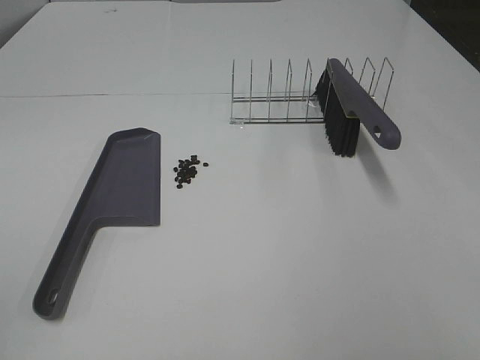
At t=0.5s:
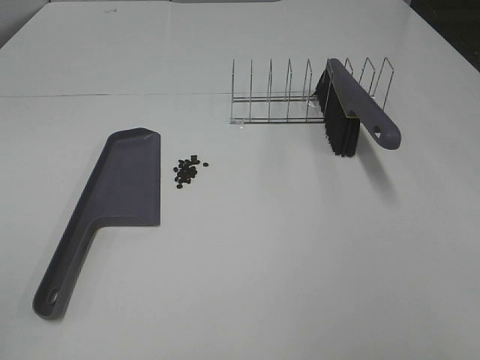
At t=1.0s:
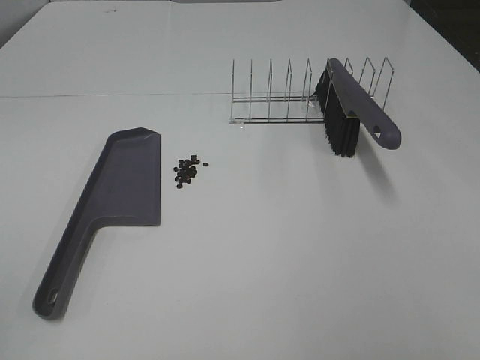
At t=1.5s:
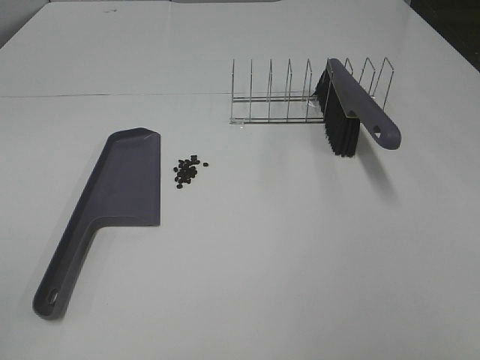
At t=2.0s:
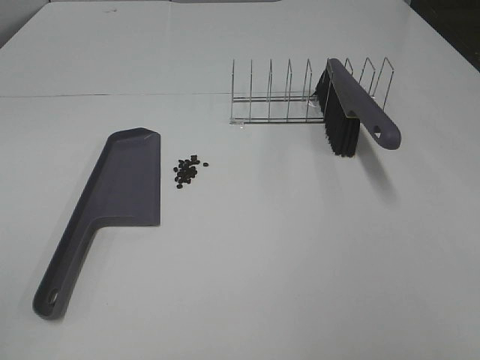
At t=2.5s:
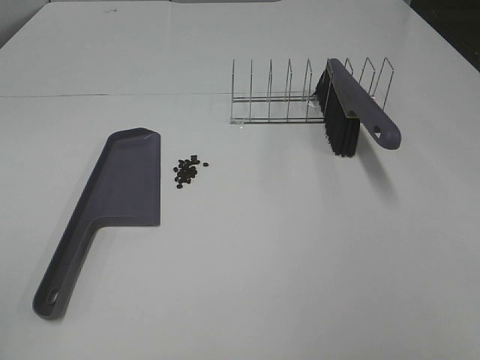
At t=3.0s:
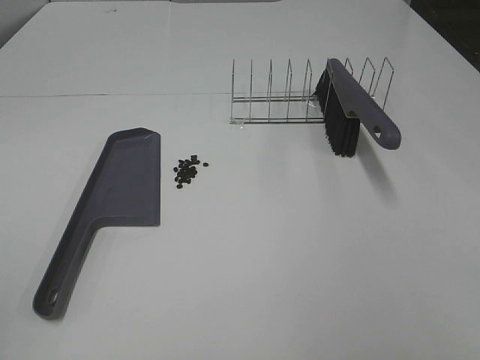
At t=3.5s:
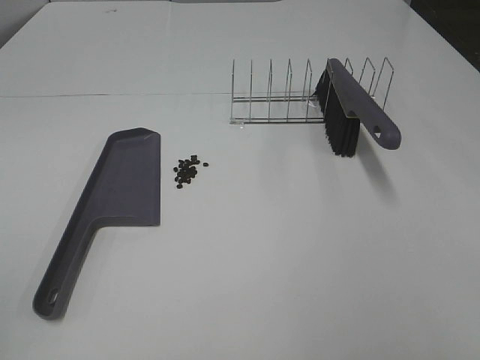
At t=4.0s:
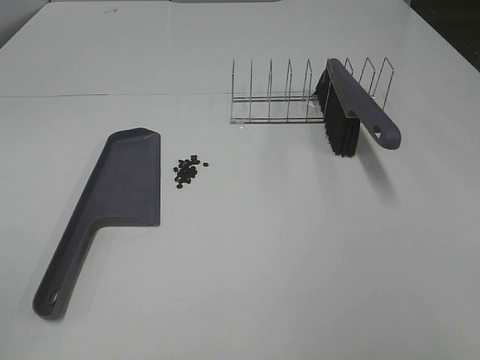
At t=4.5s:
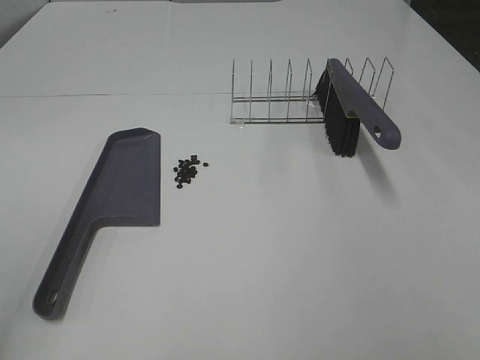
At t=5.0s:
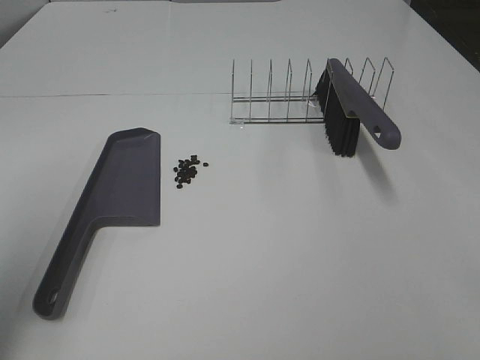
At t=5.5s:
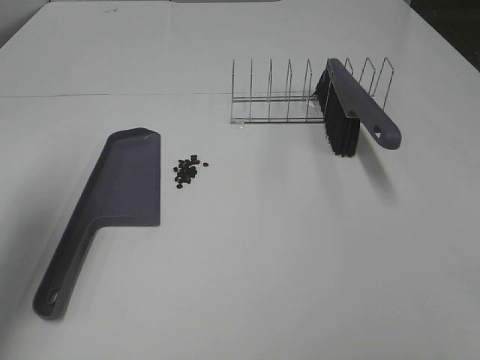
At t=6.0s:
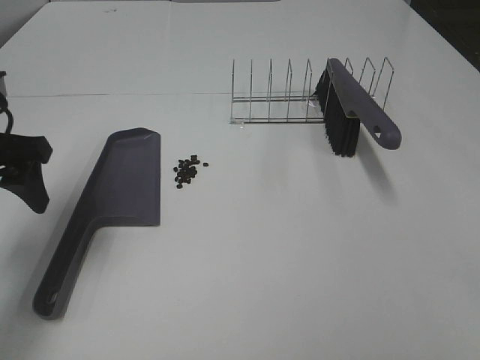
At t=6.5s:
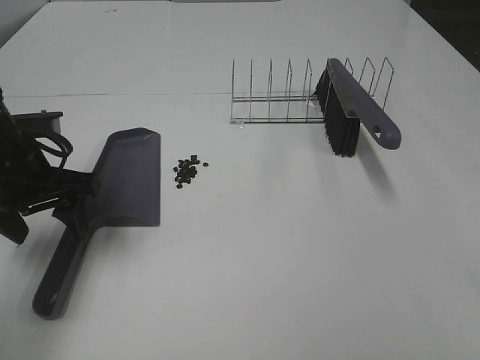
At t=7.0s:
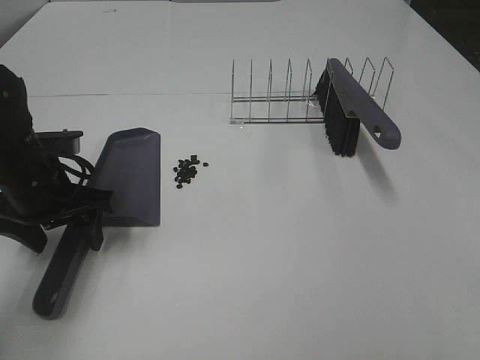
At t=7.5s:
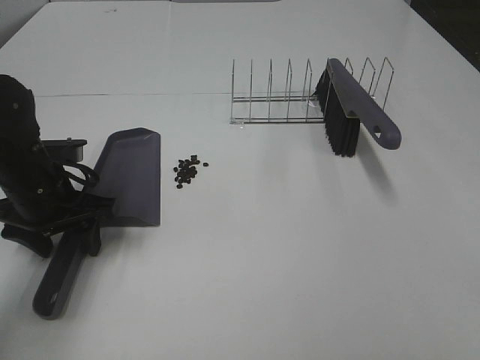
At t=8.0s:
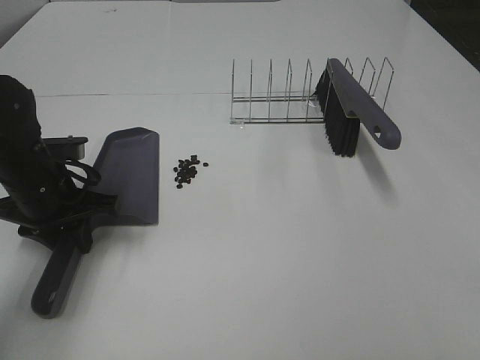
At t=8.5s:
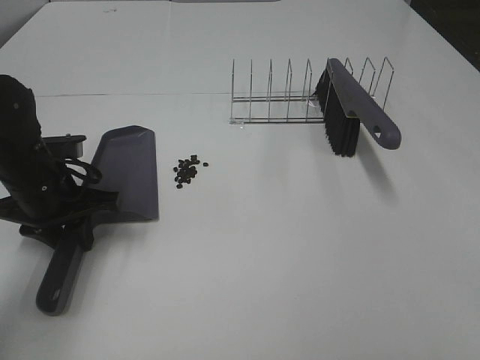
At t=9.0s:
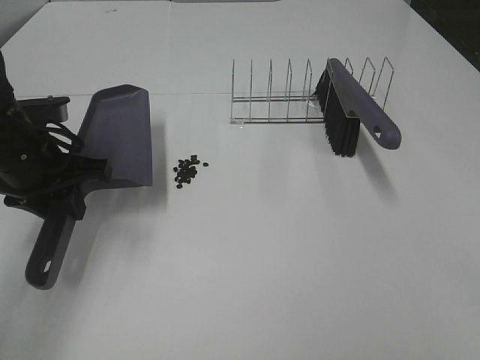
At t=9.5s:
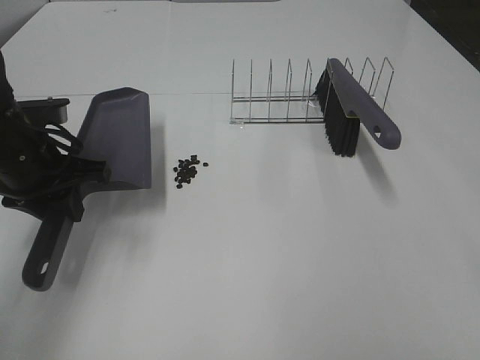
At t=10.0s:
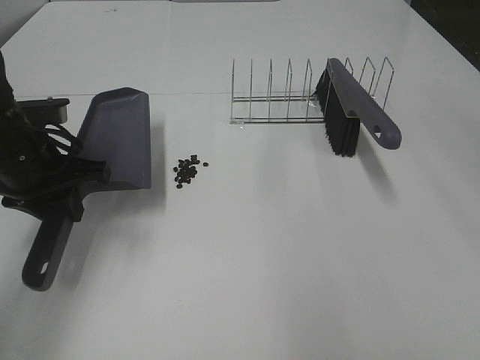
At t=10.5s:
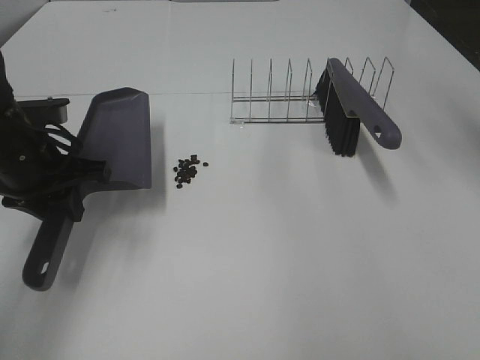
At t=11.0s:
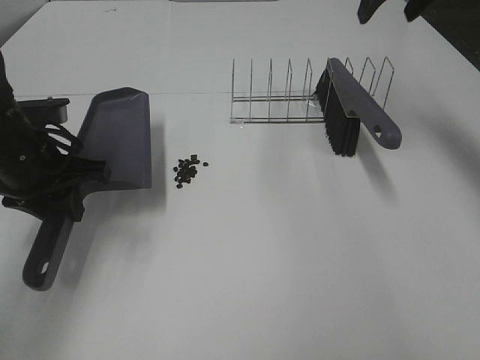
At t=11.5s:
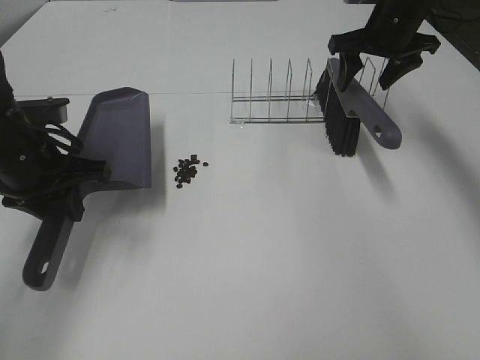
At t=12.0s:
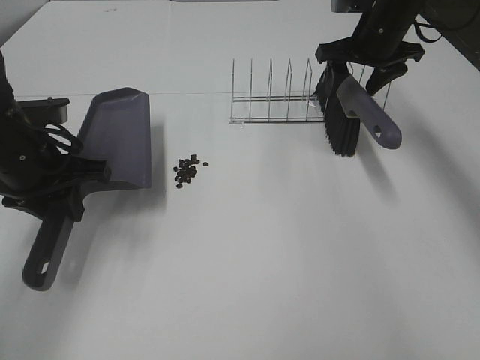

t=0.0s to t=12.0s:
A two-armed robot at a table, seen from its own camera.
Task of the whole recording: Sweep Coffee Bean.
Step, t=0.0s to t=7.5s: Left hand: grab the dustpan.
t=0.0s to t=4.0s: Both grippers stay about where they are.
t=4.0s to t=6.0s: The left gripper travels forward by approximately 30 cm.
t=6.0s to t=8.0s: The left gripper heads downward, covering approximately 10 cm, and closes its fingers.
t=8.0s to t=10.0s: The left gripper is displaced upward by about 5 cm.
t=10.0s to t=12.0s: The right gripper is displaced forward and downward by some 35 cm.

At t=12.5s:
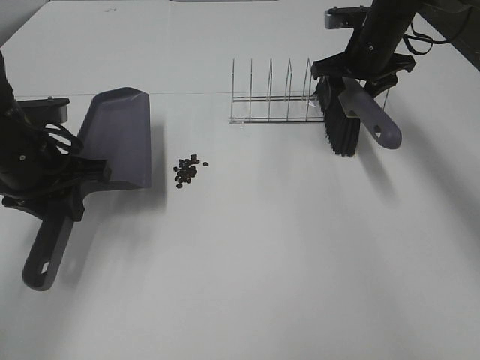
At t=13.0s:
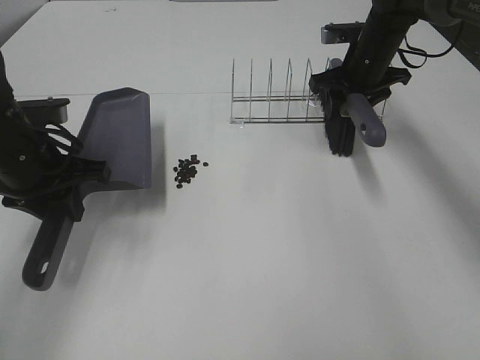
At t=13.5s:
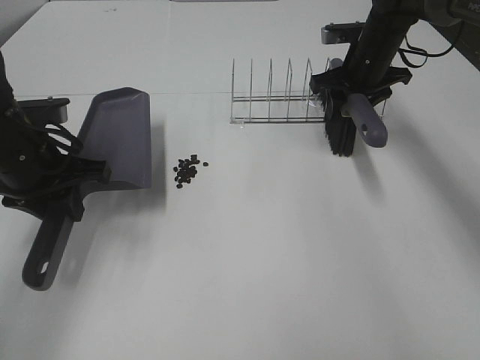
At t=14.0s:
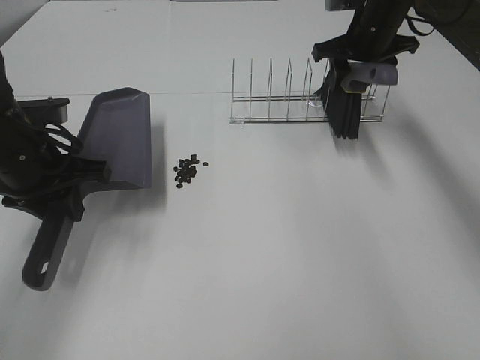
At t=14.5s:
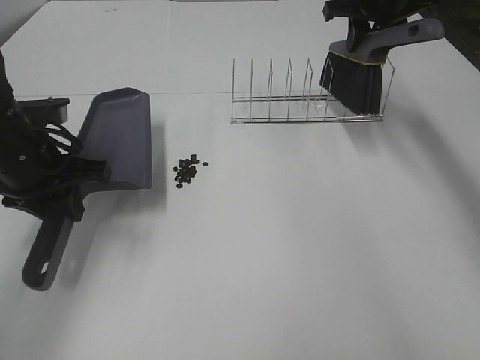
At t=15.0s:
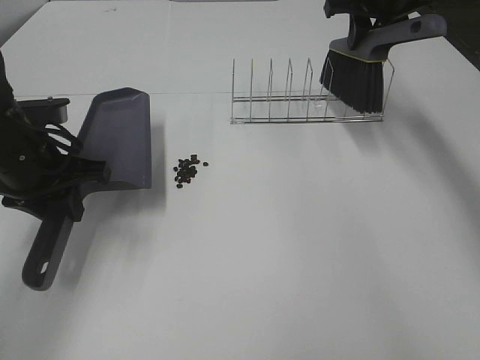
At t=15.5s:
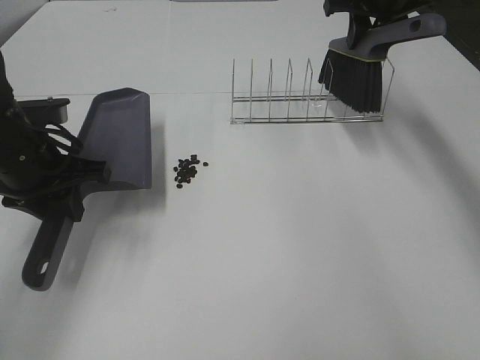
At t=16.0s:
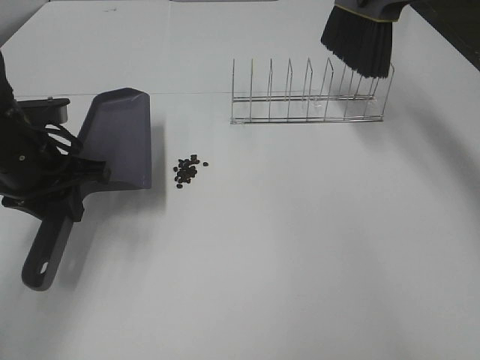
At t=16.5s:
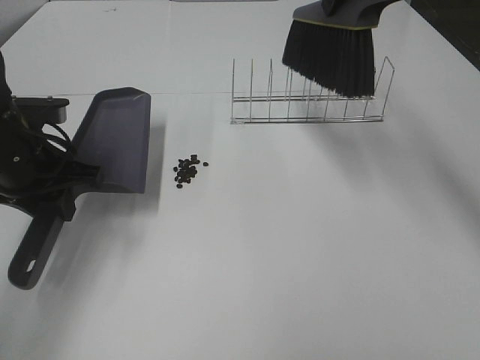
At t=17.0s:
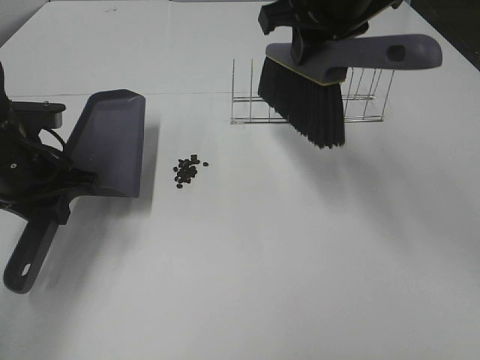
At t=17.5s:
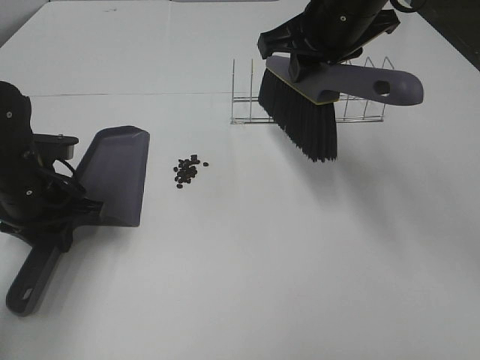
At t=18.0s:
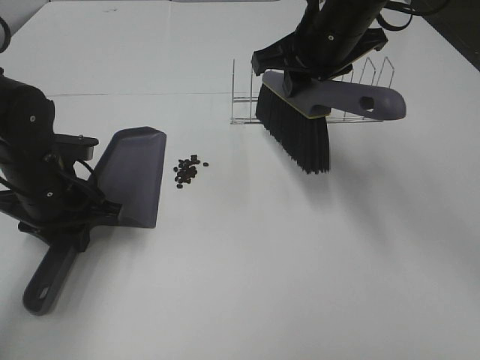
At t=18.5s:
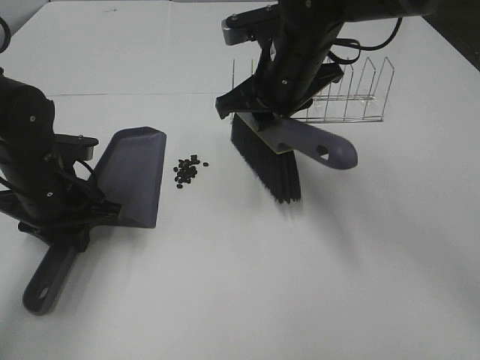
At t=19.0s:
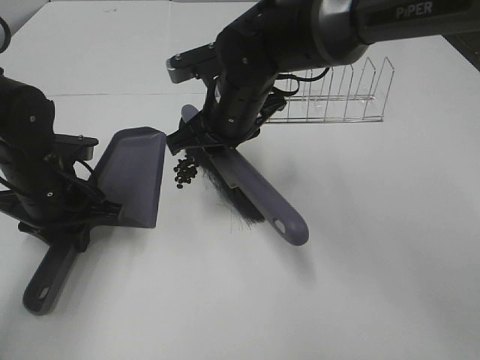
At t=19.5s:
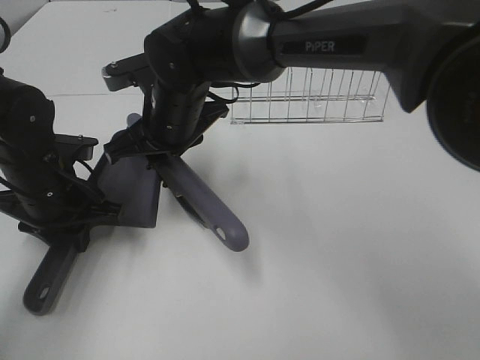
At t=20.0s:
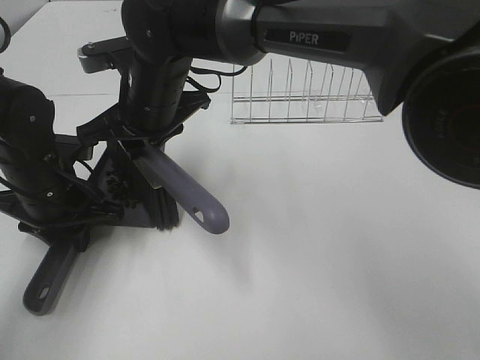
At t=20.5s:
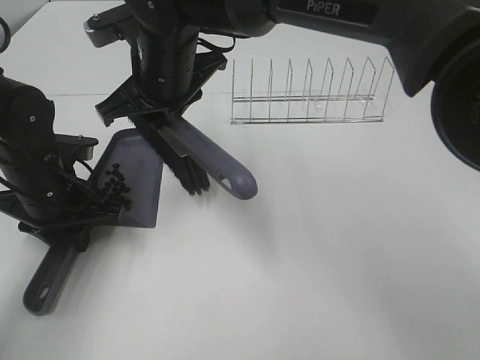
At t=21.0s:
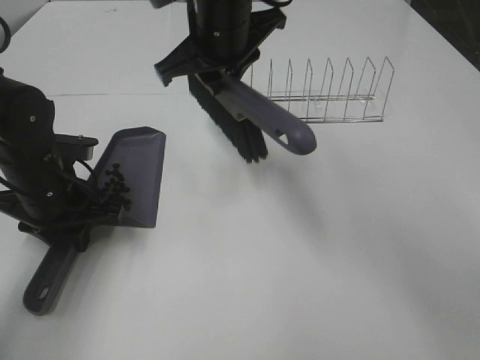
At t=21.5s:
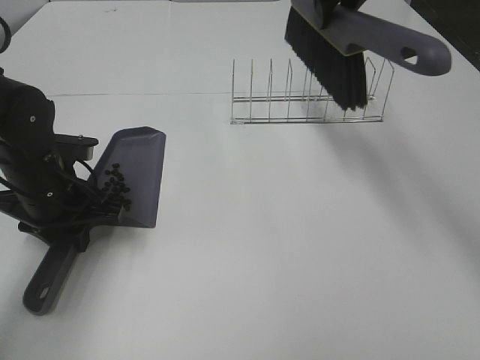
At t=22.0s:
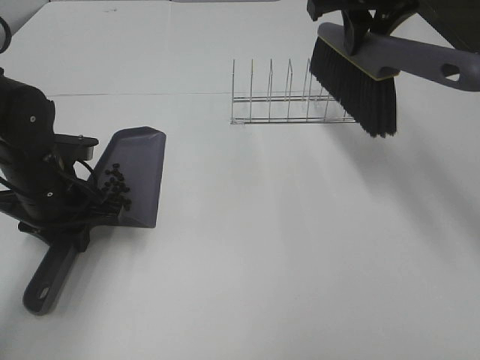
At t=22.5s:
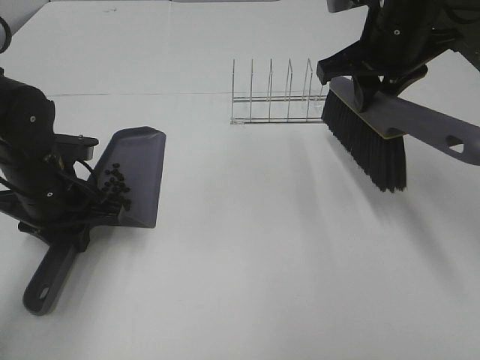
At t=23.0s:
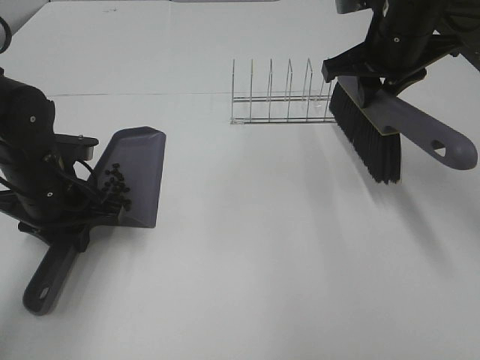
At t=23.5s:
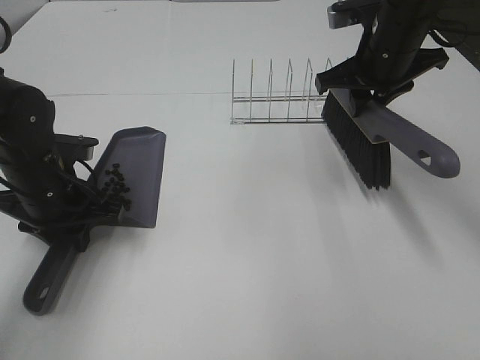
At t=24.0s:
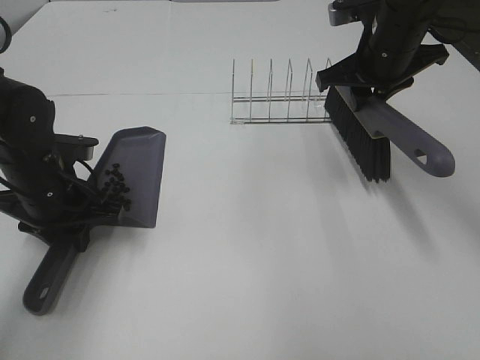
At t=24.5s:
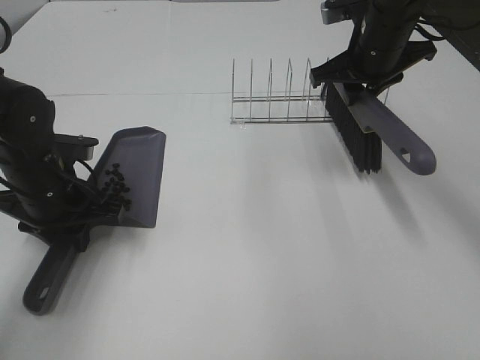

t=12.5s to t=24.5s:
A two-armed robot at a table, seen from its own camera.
Task of the whole recording: Sweep Coffee Bean.
Step, t=12.5s to t=18.0s: Left hand: move the dustpan to the left side of the coffee beans.
Step, t=13.5s to t=20.0s: Right hand:sweep the coffee beans into the dustpan.
t=12.5s to t=14.5s: The right gripper moves upward, roughly 10 cm, and closes.
t=14.5s to t=16.5s: The right gripper heads backward, upward and to the left, covering about 15 cm.
t=16.5s to t=18.5s: The left gripper shifts about 5 cm downward, while the right gripper shifts some 15 cm downward and to the left.
t=18.5s to t=20.5s: The right gripper shifts approximately 15 cm to the left.
t=20.5s to t=22.5s: The right gripper moves to the right, some 25 cm.
t=22.5s to t=24.5s: The right gripper moves forward, approximately 5 cm.

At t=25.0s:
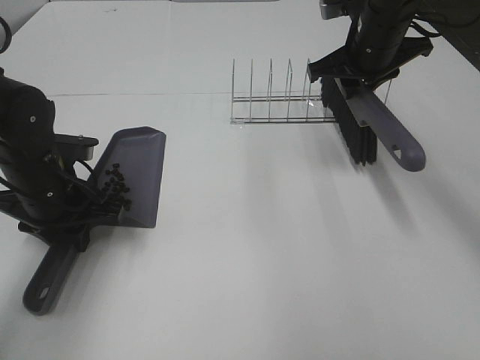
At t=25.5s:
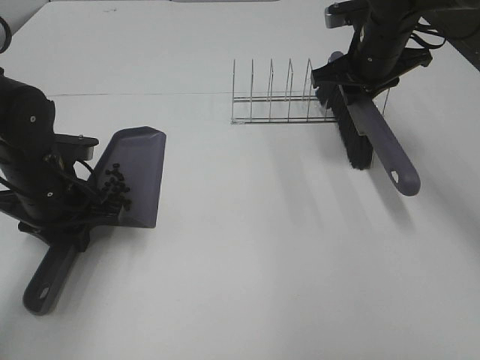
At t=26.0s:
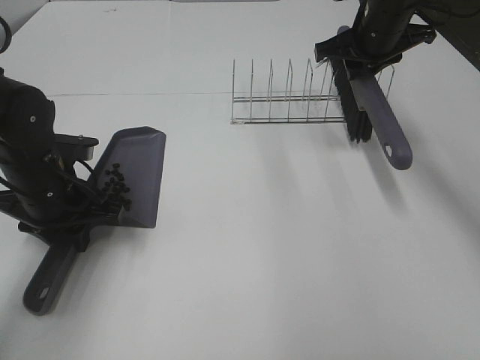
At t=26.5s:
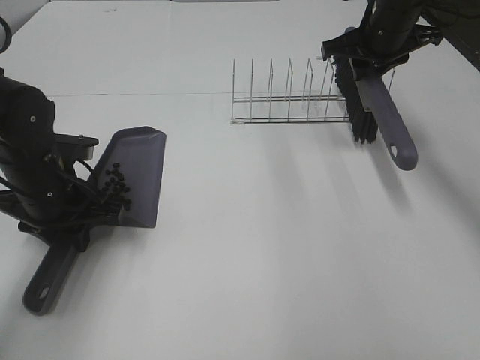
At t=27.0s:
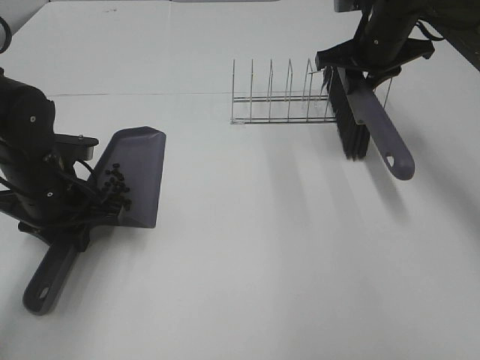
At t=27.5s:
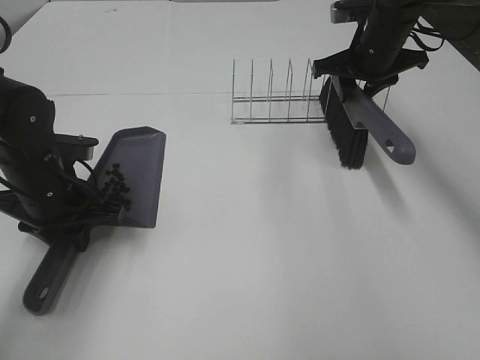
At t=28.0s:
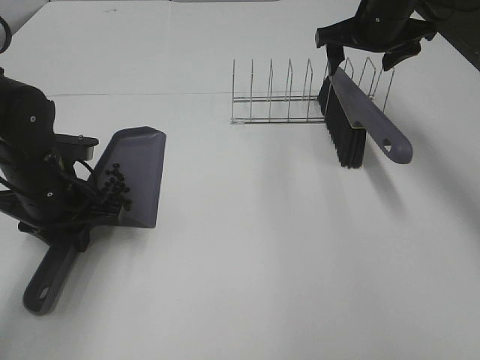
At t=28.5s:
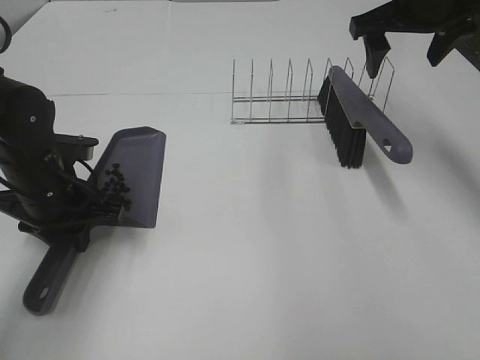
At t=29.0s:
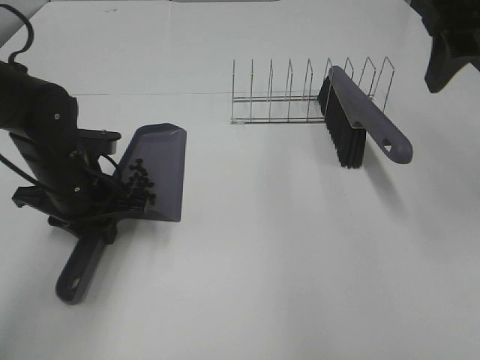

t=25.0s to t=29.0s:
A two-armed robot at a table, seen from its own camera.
Task of the whole recording: Sweep Coffee Bean.
Step, t=25.0s to t=27.5s: Right hand:place the broom on the rack.
t=25.0s to t=27.0s: The grippers make only small movements.
t=27.0s to t=29.0s: The right gripper goes some 25 cm backward and upward, and opens.
